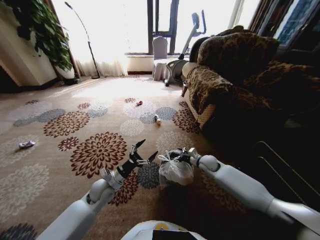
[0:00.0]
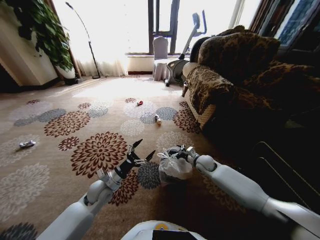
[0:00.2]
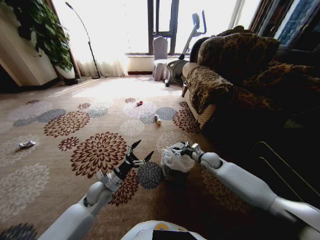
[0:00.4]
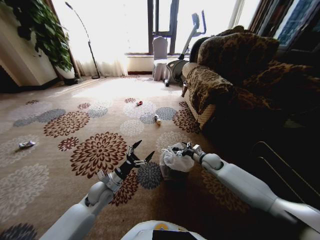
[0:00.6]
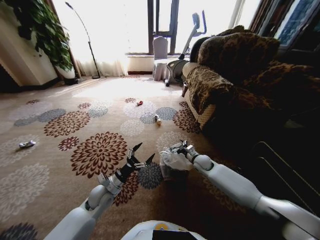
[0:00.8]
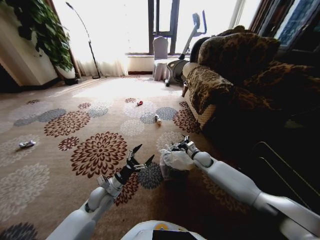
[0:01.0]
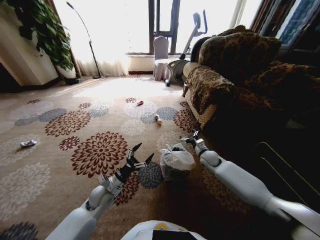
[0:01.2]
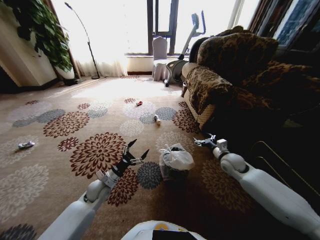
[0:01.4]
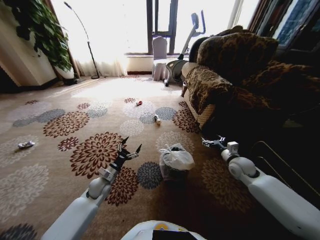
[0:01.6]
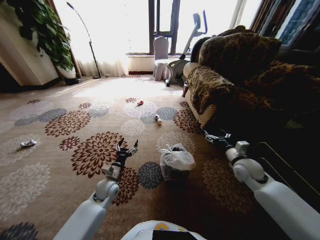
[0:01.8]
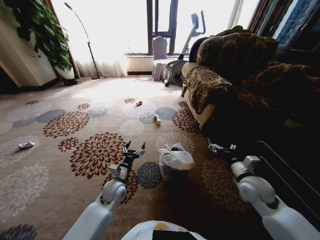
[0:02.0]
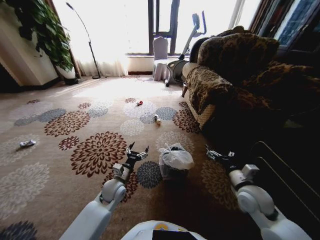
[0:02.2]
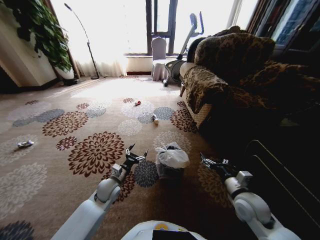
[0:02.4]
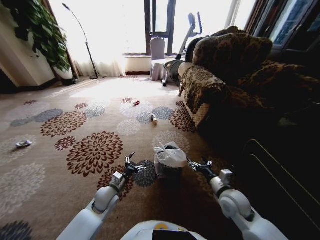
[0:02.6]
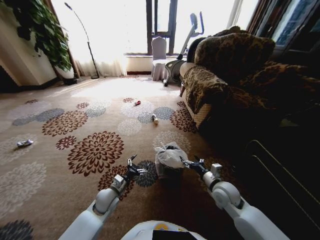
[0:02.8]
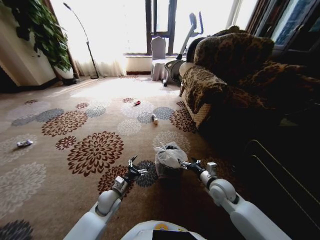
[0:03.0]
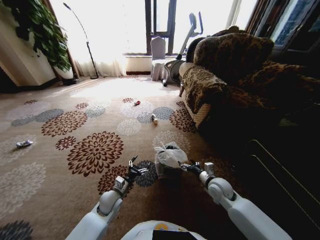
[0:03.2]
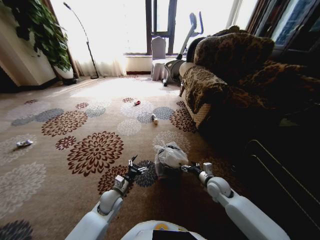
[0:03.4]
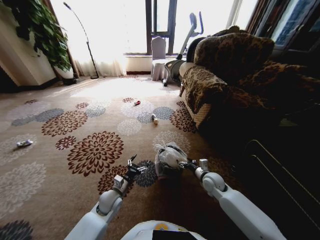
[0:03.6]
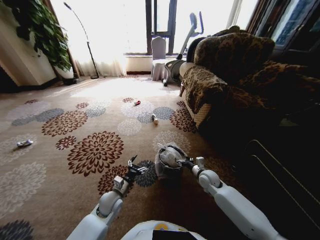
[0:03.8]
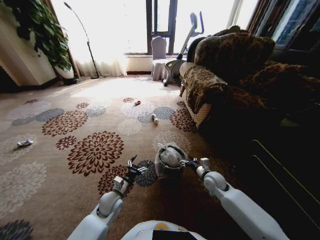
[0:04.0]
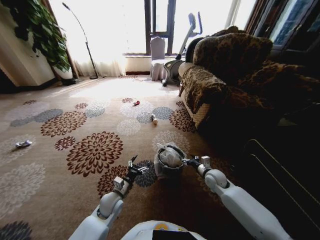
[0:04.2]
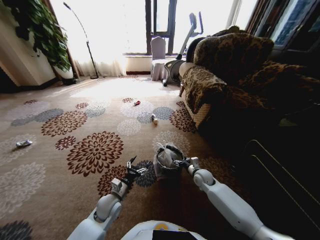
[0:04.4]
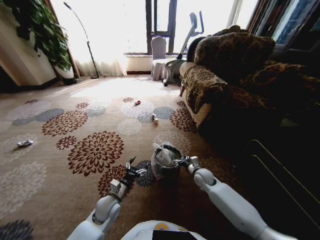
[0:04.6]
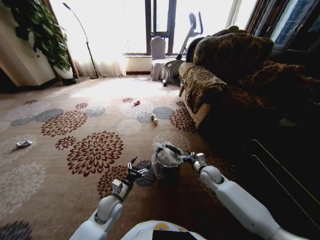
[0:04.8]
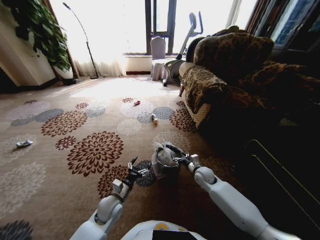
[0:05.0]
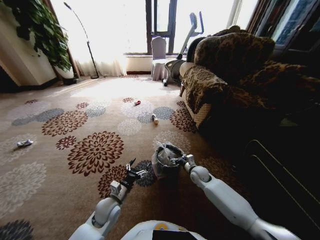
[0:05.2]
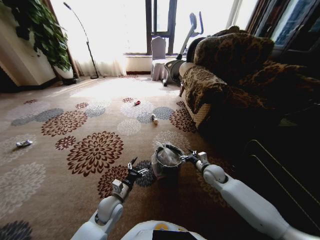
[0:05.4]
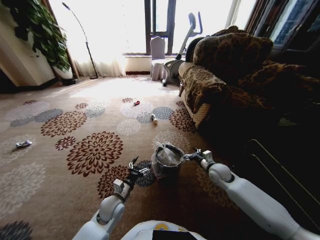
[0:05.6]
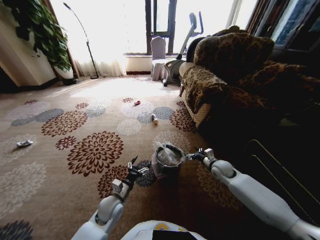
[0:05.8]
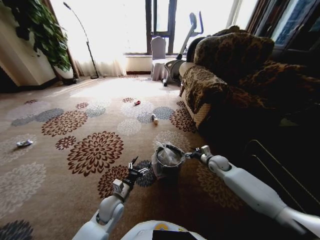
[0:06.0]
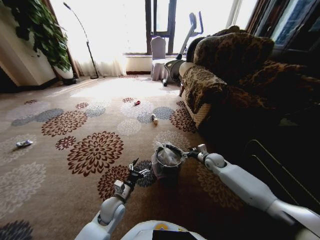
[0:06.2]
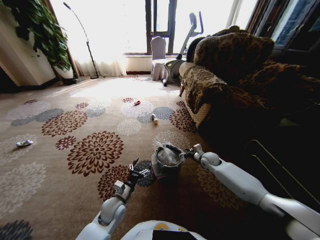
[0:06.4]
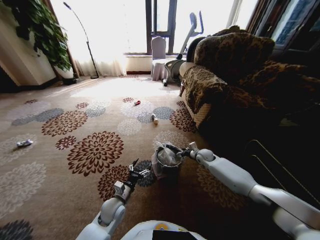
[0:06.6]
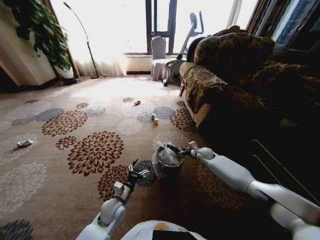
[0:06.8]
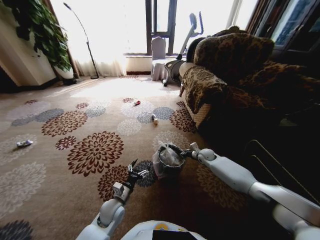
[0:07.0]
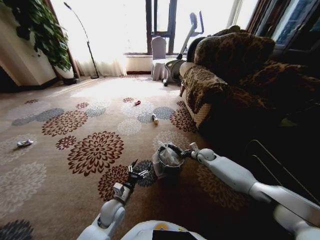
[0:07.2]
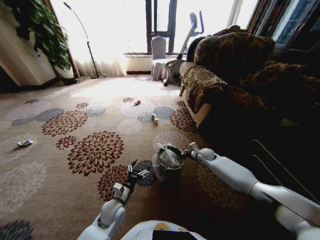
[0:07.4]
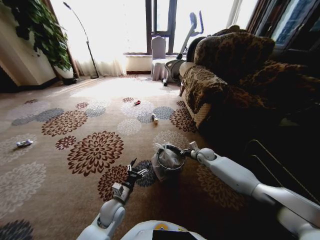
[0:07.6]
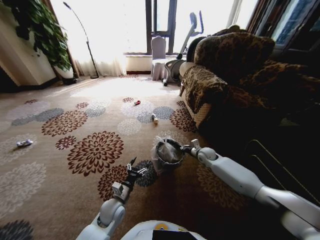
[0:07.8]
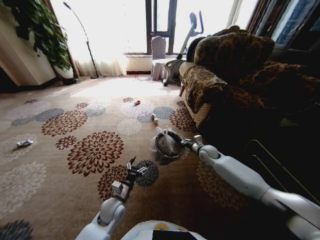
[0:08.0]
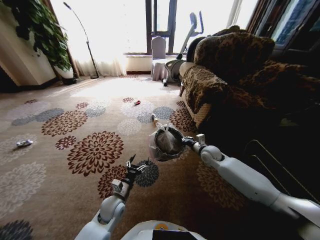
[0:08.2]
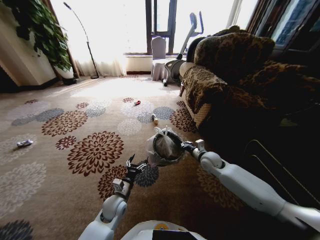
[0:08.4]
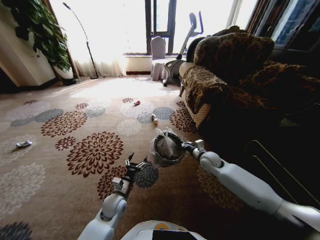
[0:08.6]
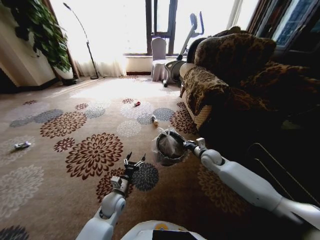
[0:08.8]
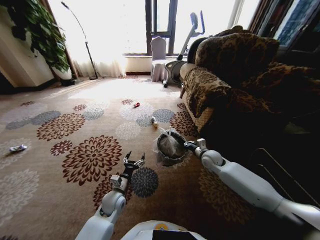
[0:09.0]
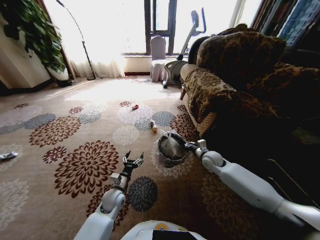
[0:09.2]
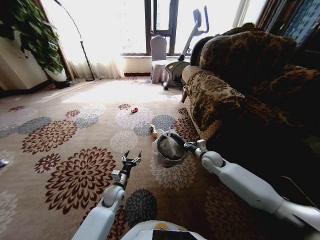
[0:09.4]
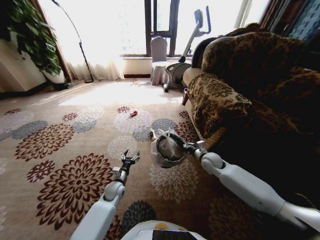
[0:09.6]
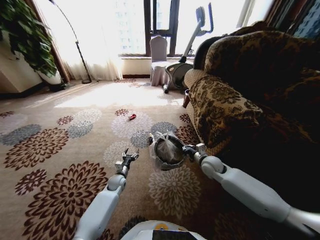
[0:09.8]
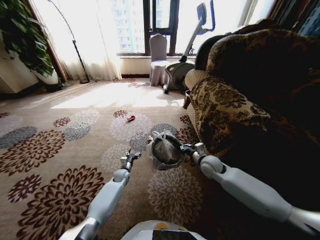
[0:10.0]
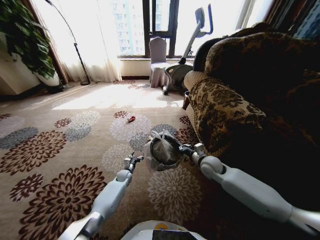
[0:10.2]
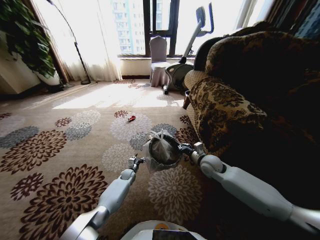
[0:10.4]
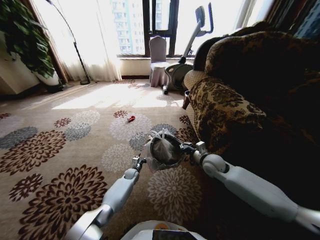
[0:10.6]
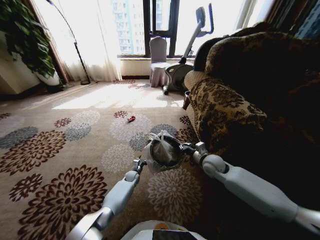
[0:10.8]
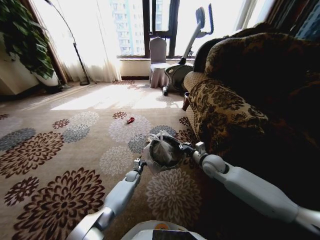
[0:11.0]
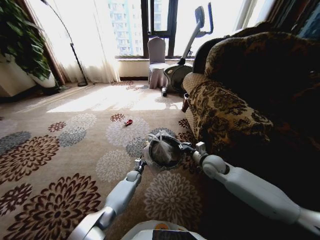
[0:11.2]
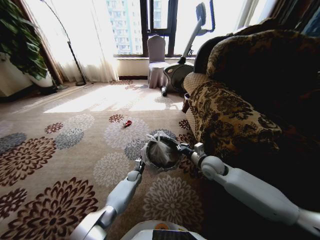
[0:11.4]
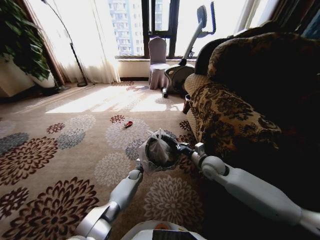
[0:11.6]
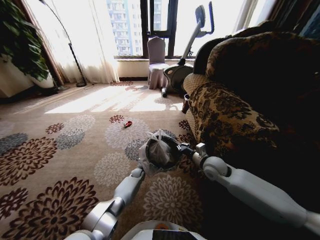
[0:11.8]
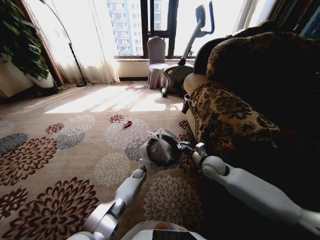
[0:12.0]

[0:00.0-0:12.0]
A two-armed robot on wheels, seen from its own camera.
Task of the whole recording: Pick up the trash from the ground and place it into the trash bin.
0:00.0 to 0:01.6: The right gripper travels to the right, upward and backward by roughly 15 cm. The left gripper moves downward, approximately 5 cm.
0:01.6 to 0:03.0: The left gripper moves to the right and backward, about 10 cm; the right gripper goes some 15 cm to the left and backward.
0:03.0 to 0:04.4: The right gripper goes about 15 cm forward and downward.
0:04.4 to 0:06.0: The right gripper goes approximately 10 cm to the right, upward and forward.
0:06.0 to 0:07.6: The right gripper shifts approximately 5 cm forward, and closes.
0:07.6 to 0:09.0: The right gripper moves backward and upward, roughly 10 cm.
0:09.0 to 0:10.4: The right gripper shifts by roughly 5 cm. Meanwhile the left gripper travels forward and downward by about 25 cm.
0:10.4 to 0:12.0: The left gripper shifts approximately 5 cm to the right.

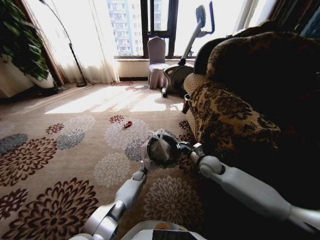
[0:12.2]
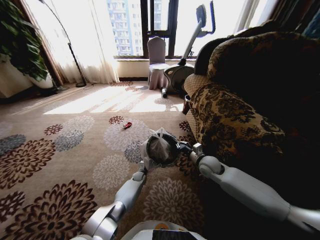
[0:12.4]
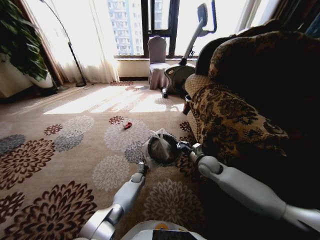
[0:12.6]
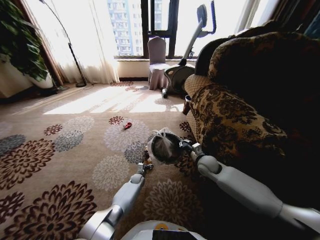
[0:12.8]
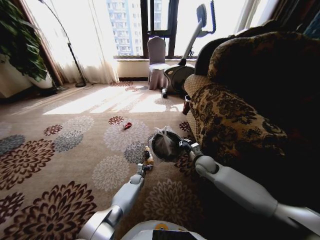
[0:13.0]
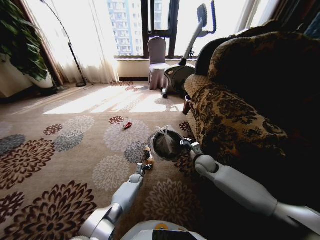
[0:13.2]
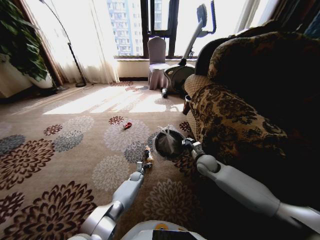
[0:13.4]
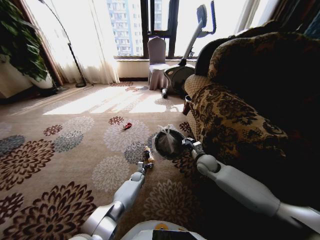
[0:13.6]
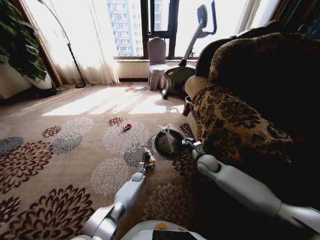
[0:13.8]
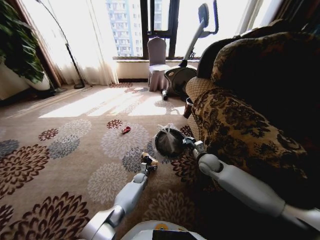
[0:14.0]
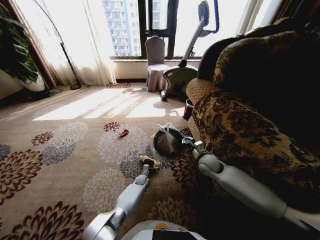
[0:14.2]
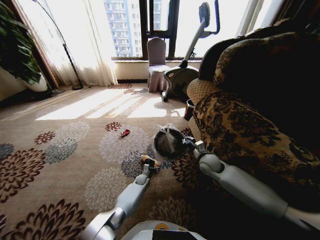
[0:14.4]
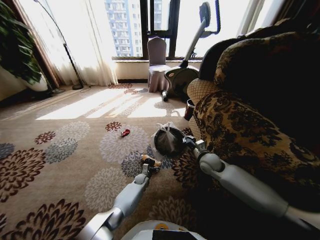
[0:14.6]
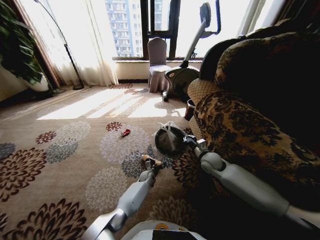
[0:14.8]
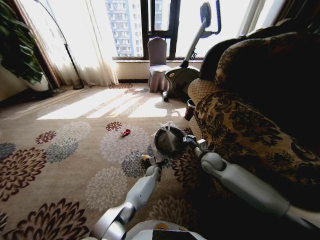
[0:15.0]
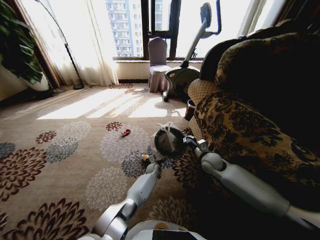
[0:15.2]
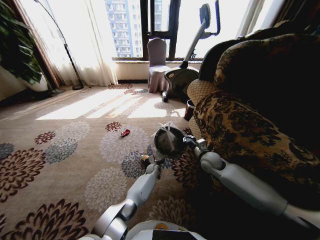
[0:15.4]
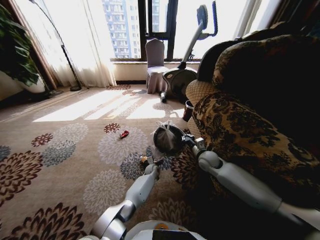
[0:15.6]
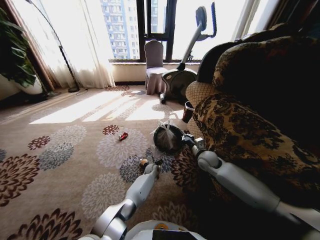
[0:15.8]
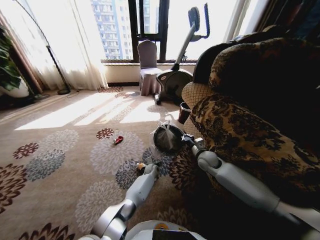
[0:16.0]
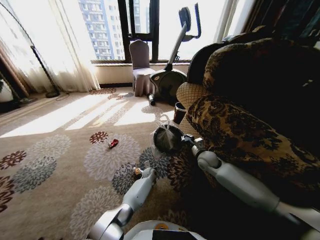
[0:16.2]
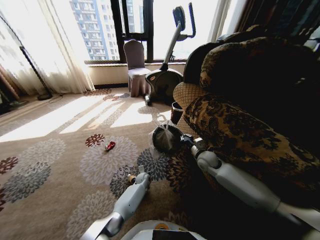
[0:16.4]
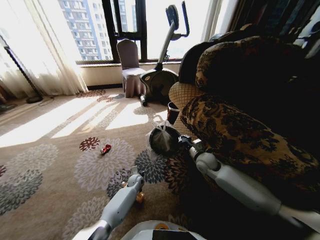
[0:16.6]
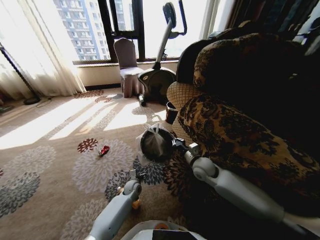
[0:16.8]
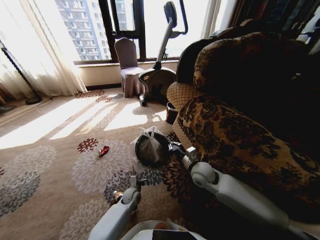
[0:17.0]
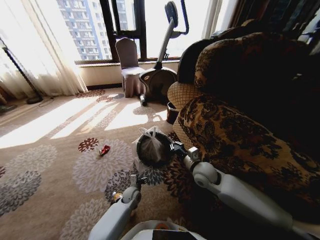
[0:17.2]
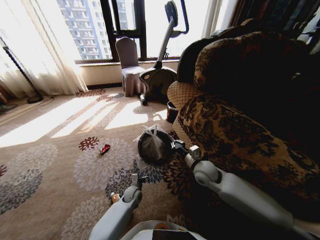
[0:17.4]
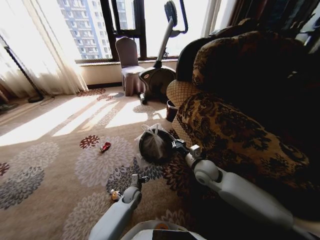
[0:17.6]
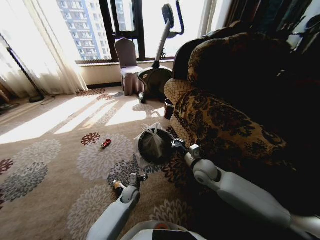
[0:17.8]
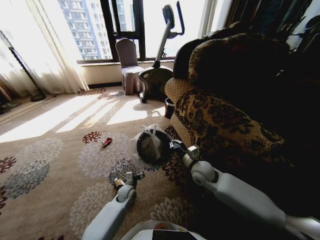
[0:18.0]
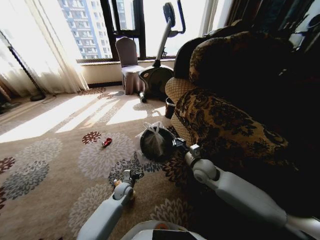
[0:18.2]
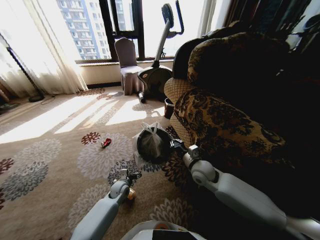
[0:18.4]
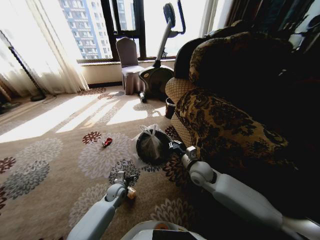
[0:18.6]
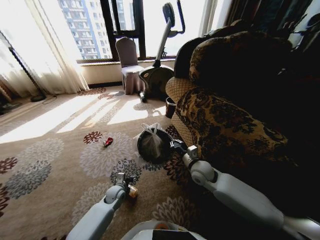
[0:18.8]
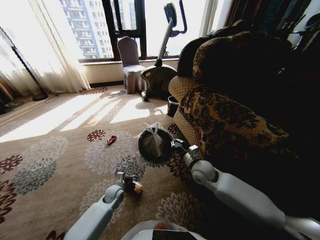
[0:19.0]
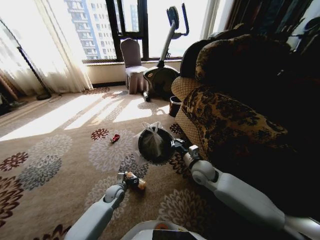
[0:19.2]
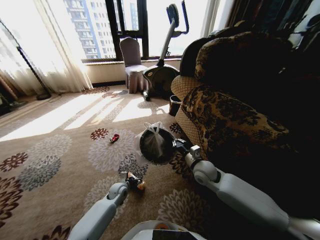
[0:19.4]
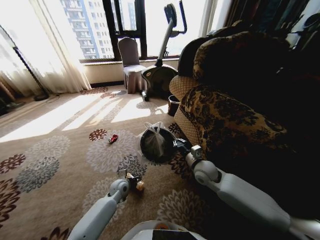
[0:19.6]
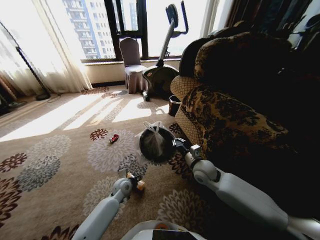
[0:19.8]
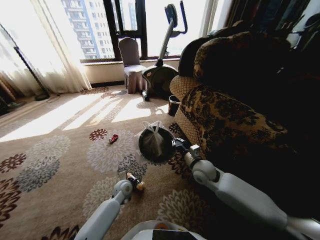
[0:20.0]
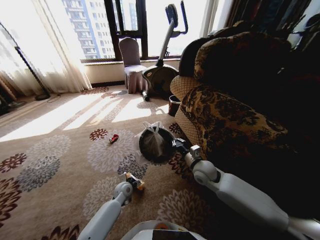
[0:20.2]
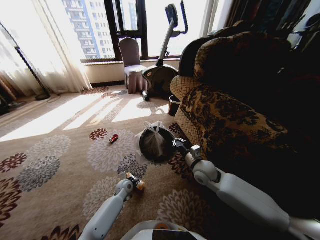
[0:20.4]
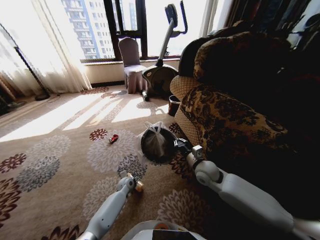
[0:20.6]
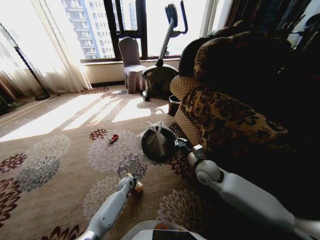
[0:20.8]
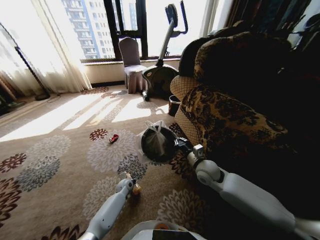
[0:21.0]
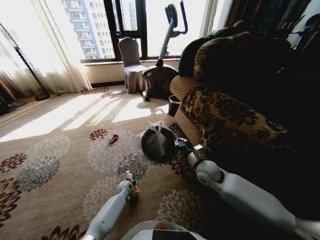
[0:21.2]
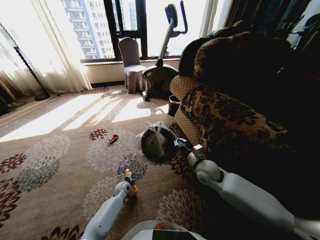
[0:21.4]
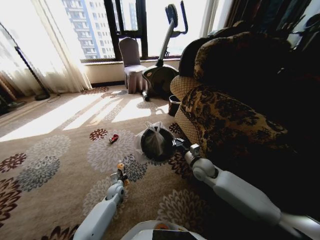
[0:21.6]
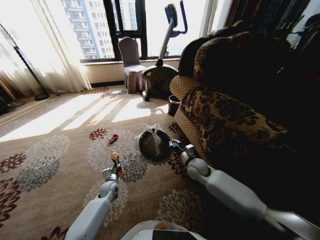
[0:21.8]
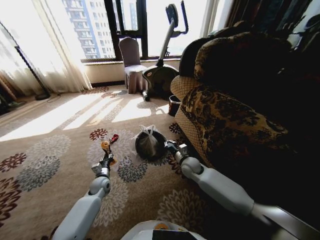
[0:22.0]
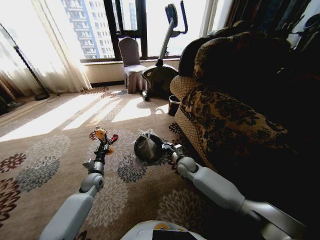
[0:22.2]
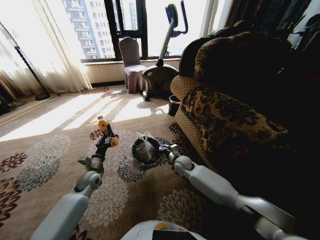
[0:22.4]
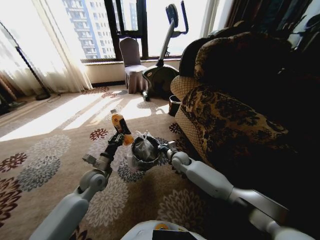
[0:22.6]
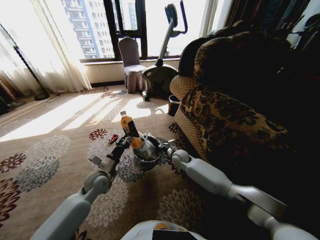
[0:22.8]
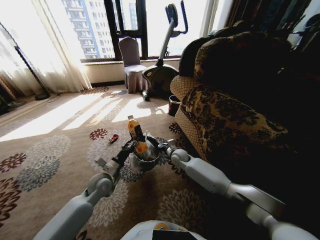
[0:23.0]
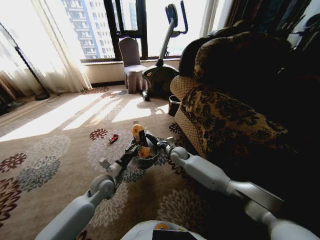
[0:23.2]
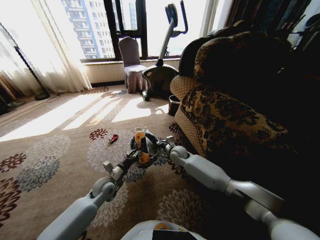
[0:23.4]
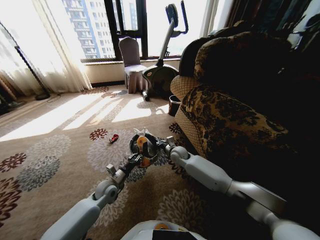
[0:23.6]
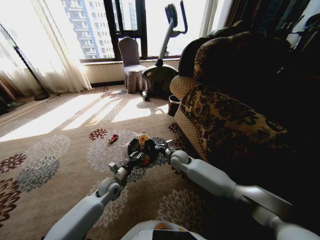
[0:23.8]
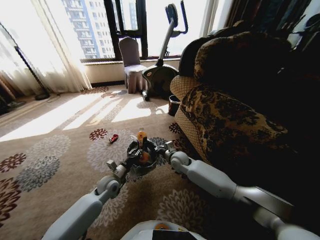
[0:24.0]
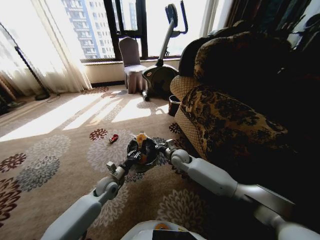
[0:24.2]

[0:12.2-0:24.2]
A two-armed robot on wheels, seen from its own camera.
Task of the whole recording: Pick up the trash from the ground and place it into the trash bin.
0:13.8 to 0:15.2: The left gripper moves to the right and upward, approximately 15 cm.
0:15.2 to 0:16.6: The left gripper travels to the left and backward by approximately 15 cm.
0:16.6 to 0:18.2: The left gripper travels backward by some 5 cm. The right gripper changes place by roughly 5 cm.
0:19.8 to 0:21.2: The left gripper goes some 10 cm downward, and closes.
0:21.2 to 0:22.6: The right gripper is displaced forward, to the left and downward by some 15 cm. Meanwhile the left gripper moves upward, approximately 25 cm.
0:22.6 to 0:24.2: The left gripper moves downward, some 10 cm.
